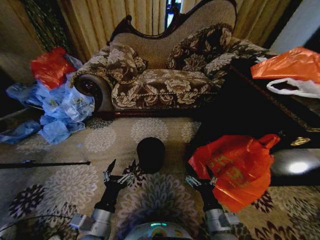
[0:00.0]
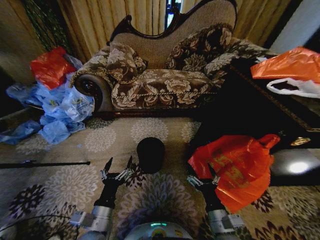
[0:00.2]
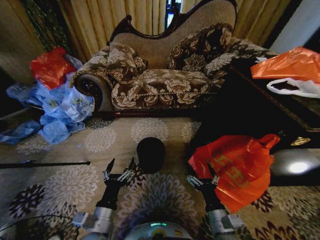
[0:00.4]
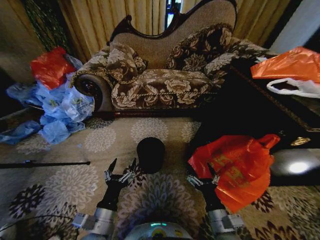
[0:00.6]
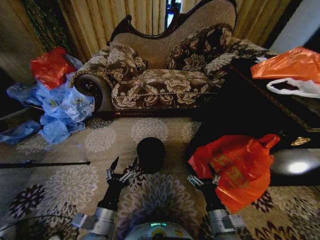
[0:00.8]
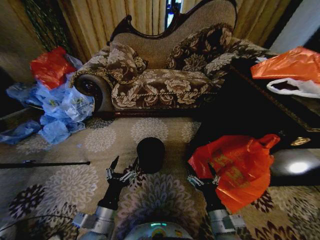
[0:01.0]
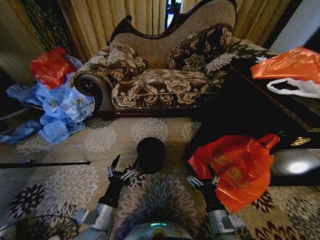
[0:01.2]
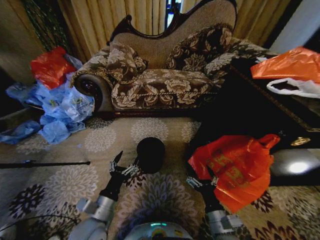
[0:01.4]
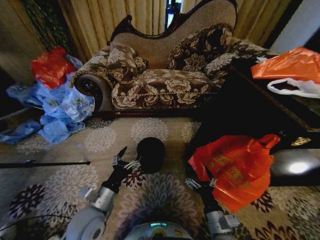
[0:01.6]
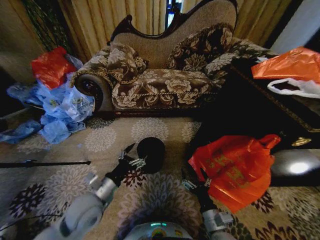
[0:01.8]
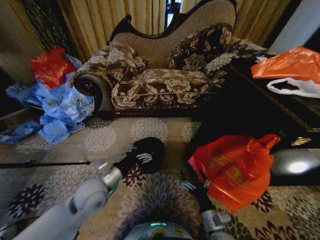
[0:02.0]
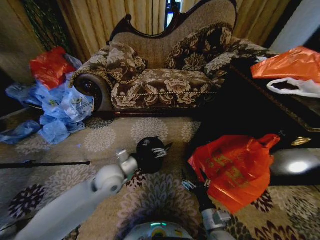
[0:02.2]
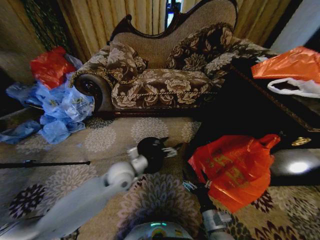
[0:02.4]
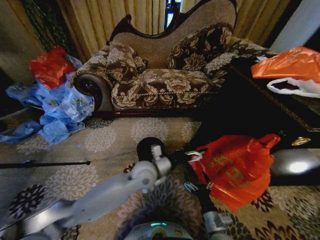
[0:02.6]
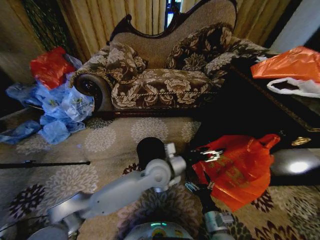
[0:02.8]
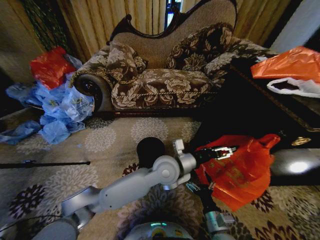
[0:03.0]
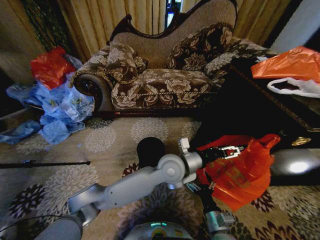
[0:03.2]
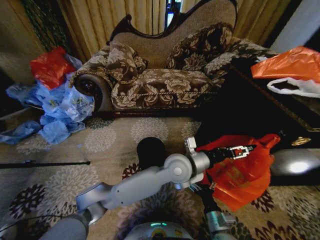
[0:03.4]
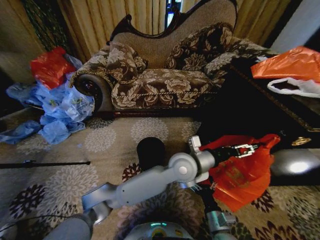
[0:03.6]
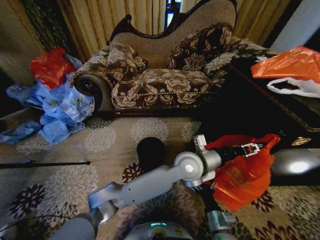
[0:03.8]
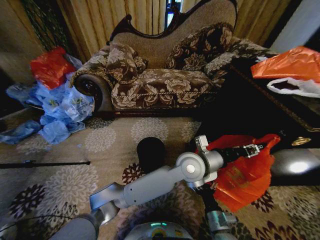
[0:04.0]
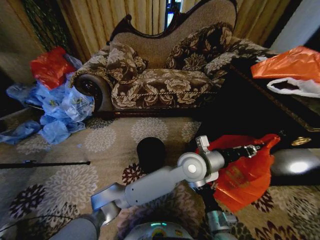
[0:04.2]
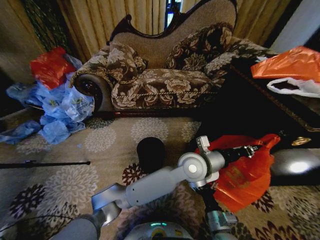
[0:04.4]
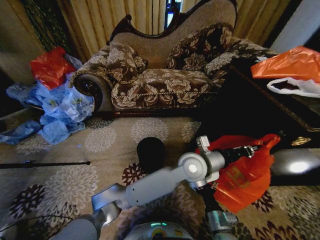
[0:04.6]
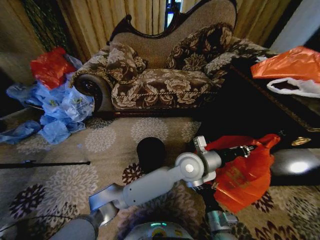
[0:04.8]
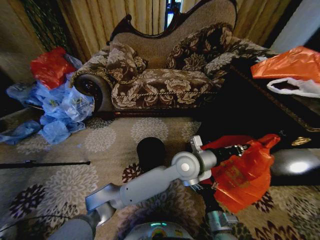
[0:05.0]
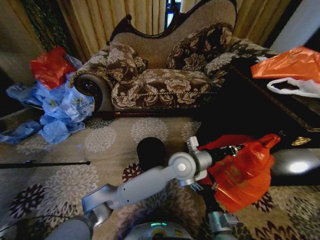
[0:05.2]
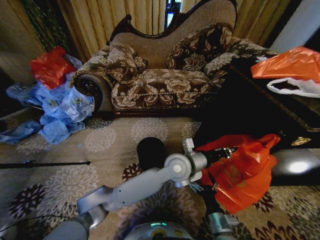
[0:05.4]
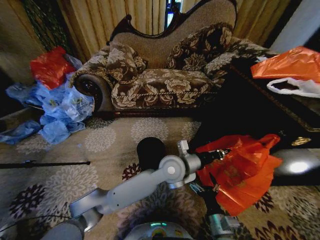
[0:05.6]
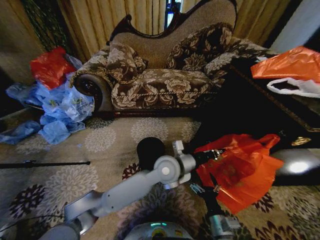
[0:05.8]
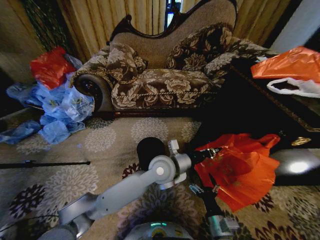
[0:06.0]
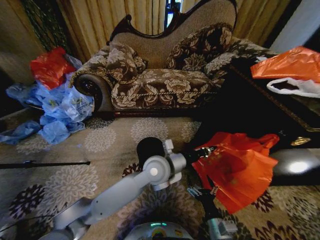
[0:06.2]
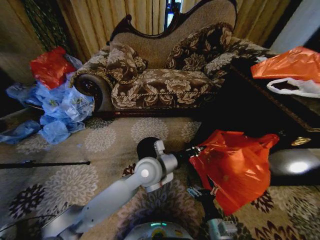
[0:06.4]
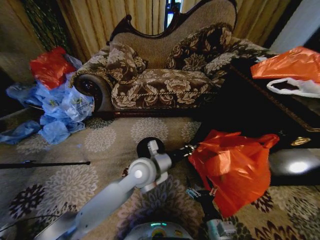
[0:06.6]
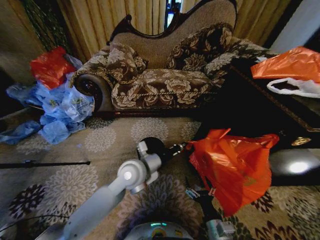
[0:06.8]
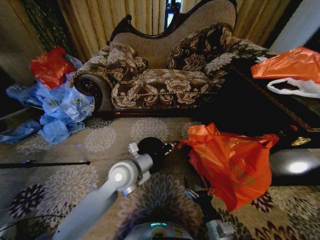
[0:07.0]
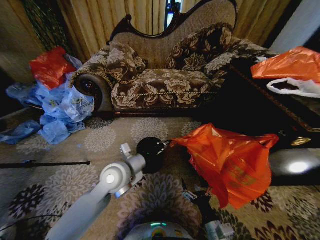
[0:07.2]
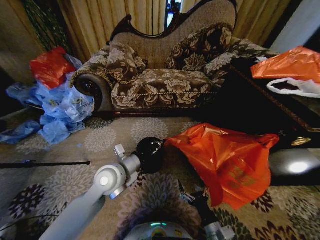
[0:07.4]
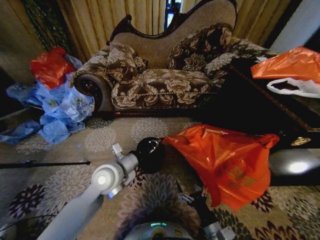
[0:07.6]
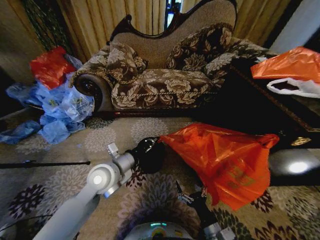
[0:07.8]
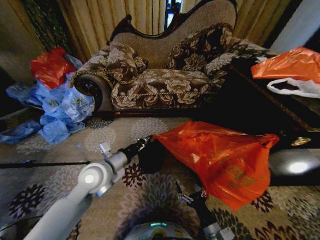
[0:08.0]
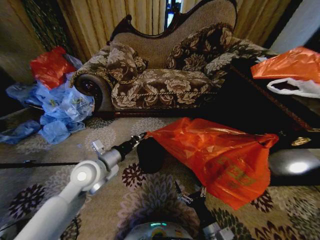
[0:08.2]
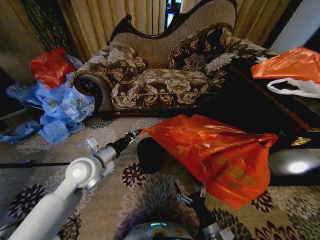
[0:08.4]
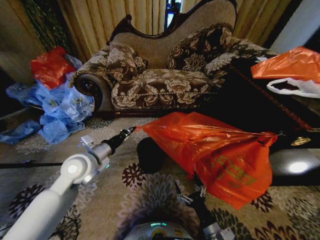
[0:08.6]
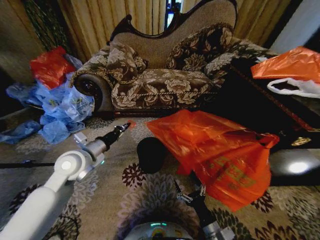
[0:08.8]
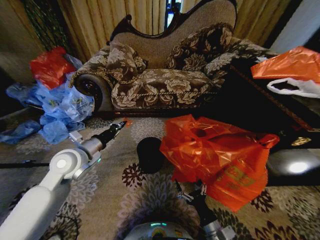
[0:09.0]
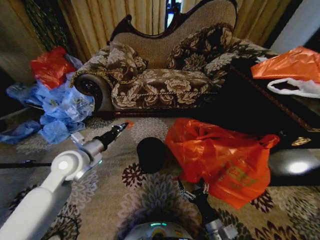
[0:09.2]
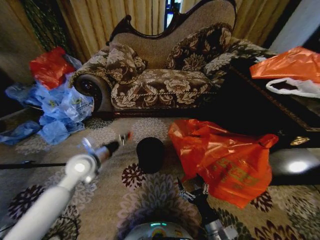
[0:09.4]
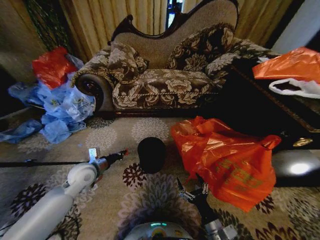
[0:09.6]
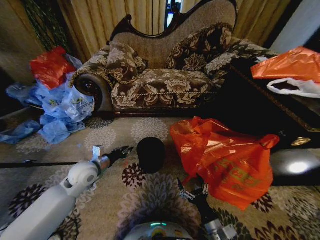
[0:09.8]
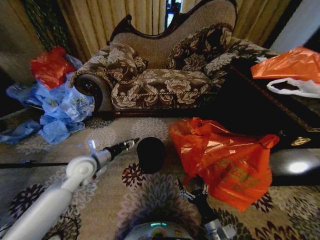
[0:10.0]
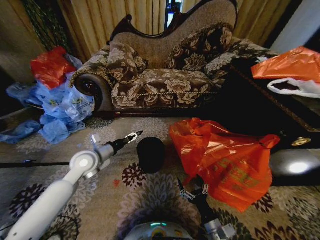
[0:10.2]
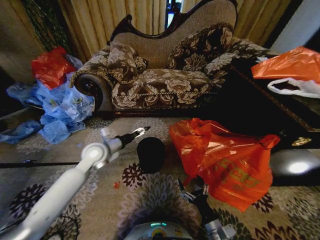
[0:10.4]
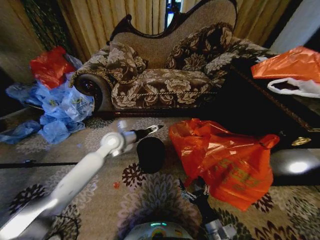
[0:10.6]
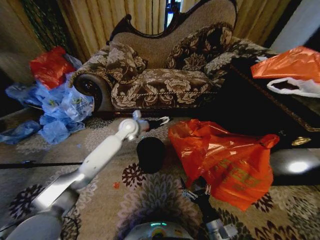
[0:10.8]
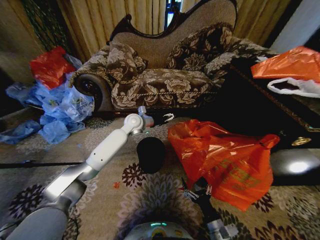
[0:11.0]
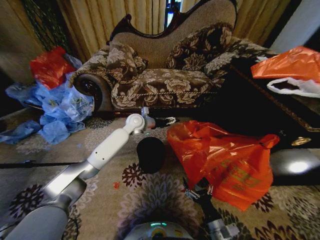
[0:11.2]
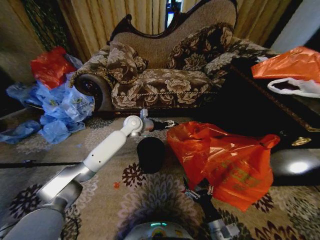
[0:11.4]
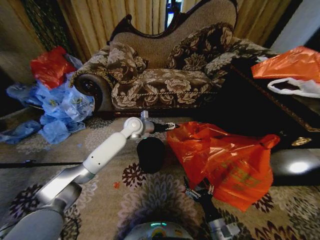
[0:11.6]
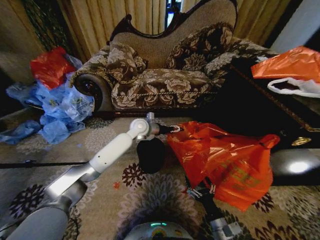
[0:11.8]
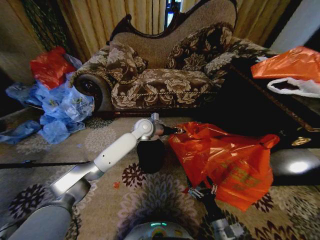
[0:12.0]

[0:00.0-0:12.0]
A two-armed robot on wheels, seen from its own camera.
Task of the whole recording: Place a garbage bag over the trash bin.
0:01.6 to 0:03.0: The left gripper travels to the right and forward by some 25 cm.
0:03.0 to 0:04.4: The left gripper moves to the right, some 10 cm, and closes.
0:04.4 to 0:06.0: The left gripper moves to the left, roughly 10 cm.
0:06.0 to 0:07.6: The left gripper travels to the left by roughly 15 cm.
0:07.6 to 0:09.0: The left gripper travels to the left by roughly 10 cm.
0:09.0 to 0:10.4: The left gripper is displaced forward by some 5 cm, and opens.
0:10.4 to 0:12.0: The left gripper goes roughly 25 cm to the right and forward, and closes.

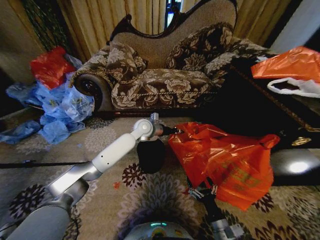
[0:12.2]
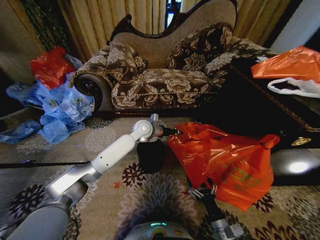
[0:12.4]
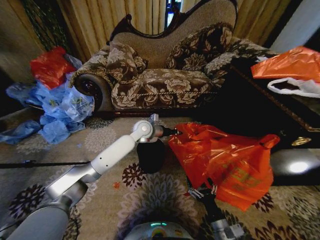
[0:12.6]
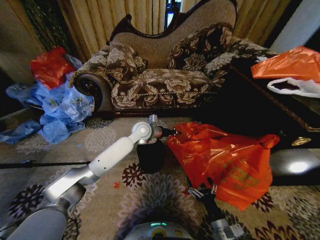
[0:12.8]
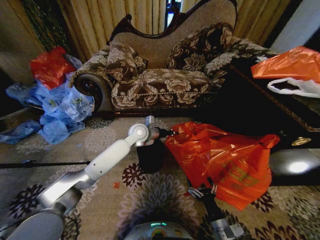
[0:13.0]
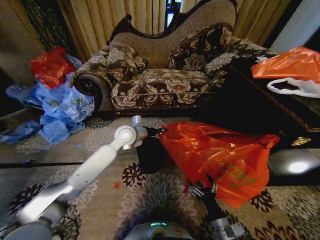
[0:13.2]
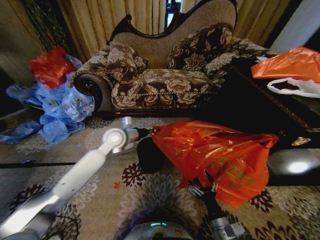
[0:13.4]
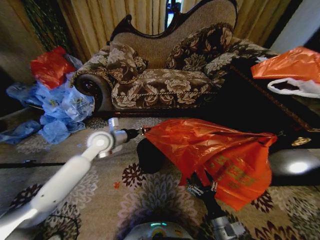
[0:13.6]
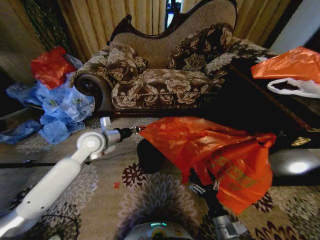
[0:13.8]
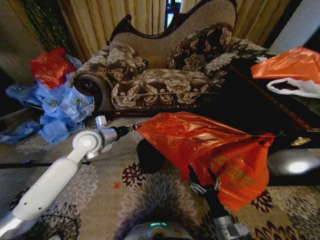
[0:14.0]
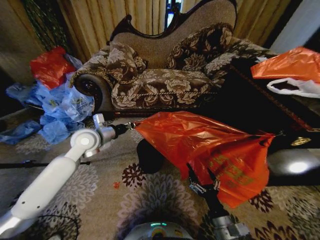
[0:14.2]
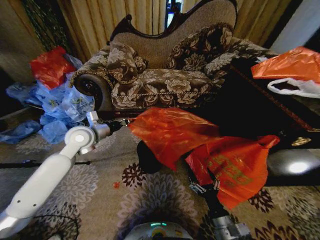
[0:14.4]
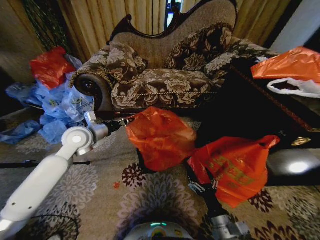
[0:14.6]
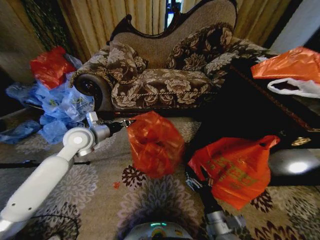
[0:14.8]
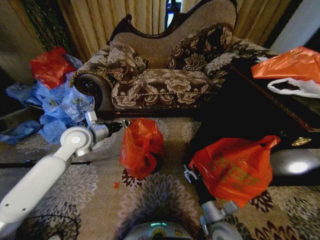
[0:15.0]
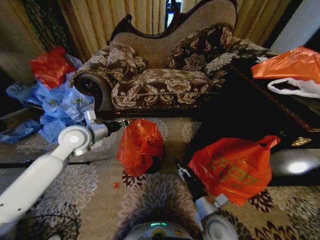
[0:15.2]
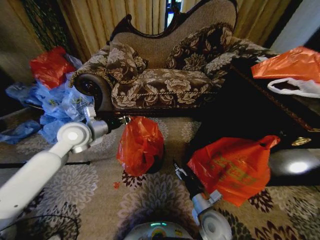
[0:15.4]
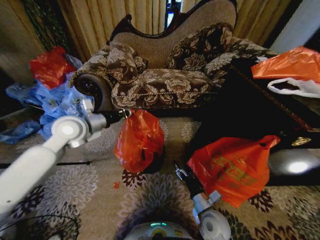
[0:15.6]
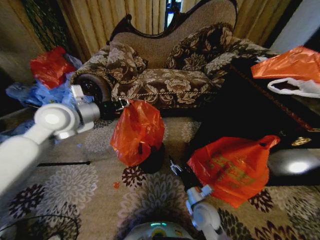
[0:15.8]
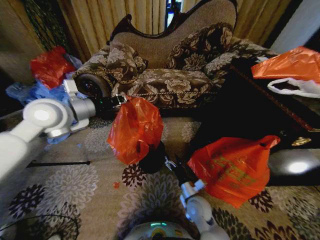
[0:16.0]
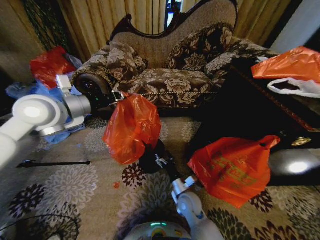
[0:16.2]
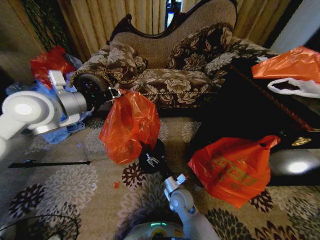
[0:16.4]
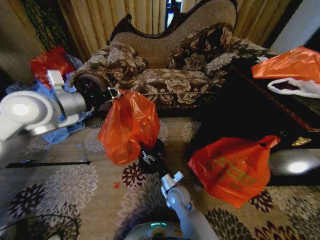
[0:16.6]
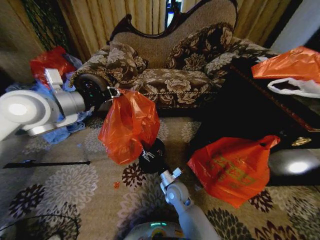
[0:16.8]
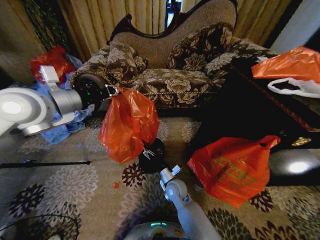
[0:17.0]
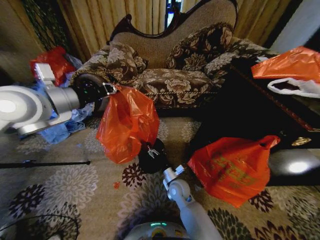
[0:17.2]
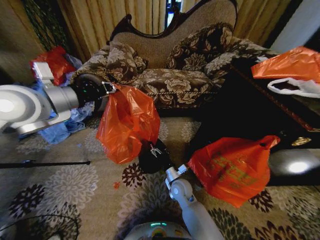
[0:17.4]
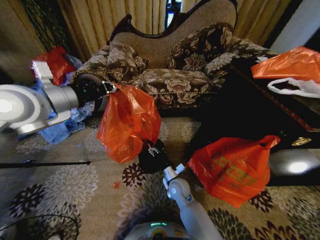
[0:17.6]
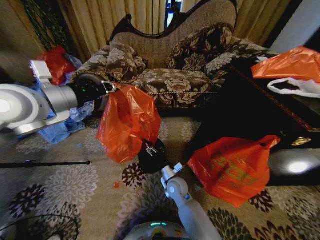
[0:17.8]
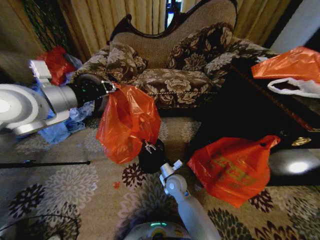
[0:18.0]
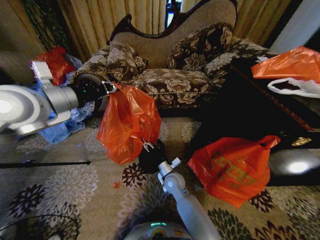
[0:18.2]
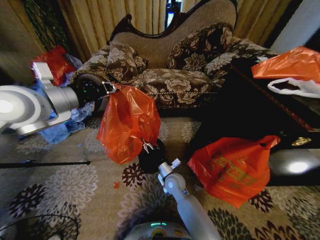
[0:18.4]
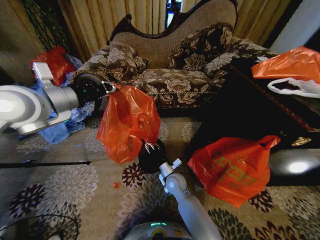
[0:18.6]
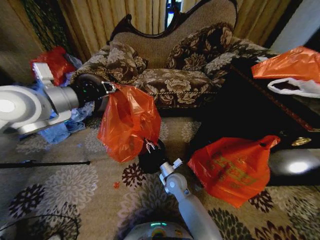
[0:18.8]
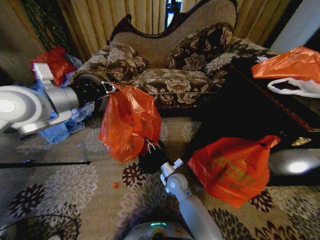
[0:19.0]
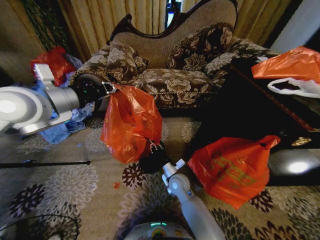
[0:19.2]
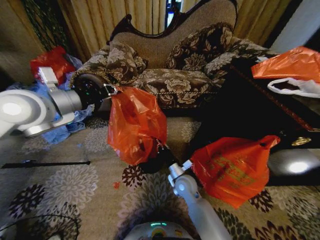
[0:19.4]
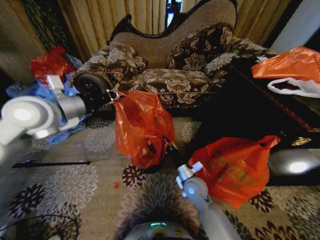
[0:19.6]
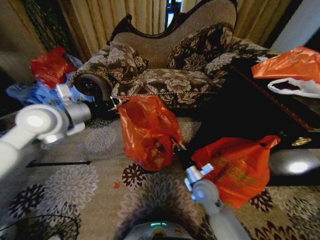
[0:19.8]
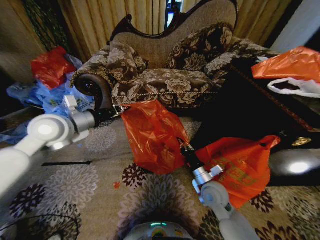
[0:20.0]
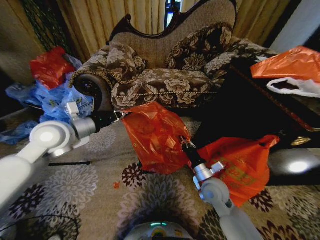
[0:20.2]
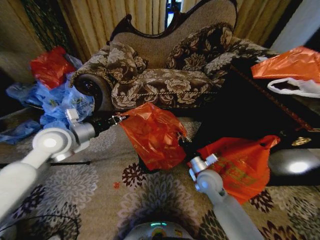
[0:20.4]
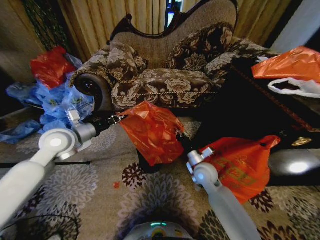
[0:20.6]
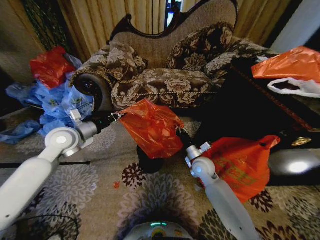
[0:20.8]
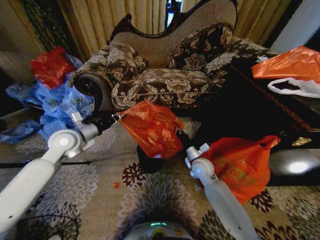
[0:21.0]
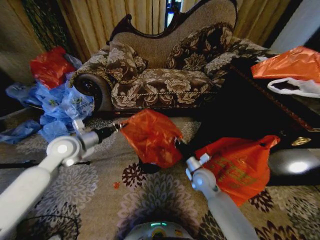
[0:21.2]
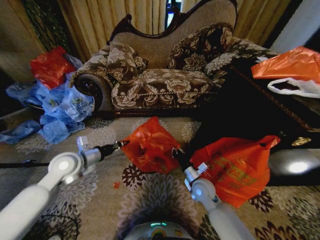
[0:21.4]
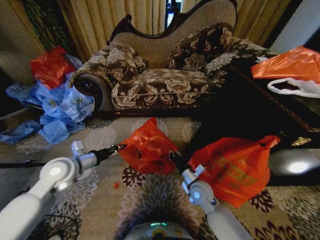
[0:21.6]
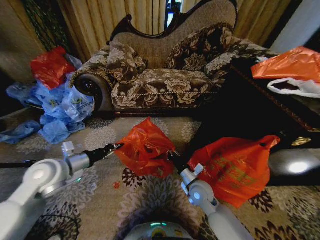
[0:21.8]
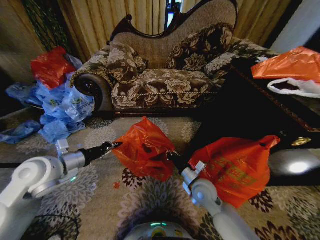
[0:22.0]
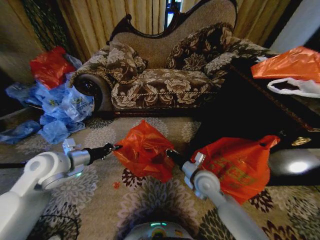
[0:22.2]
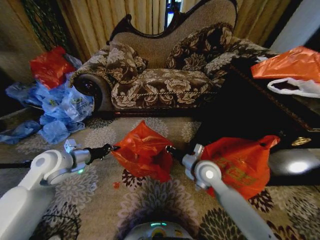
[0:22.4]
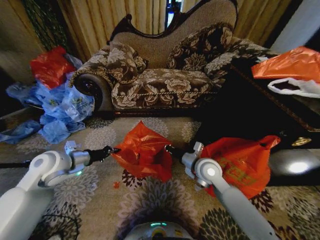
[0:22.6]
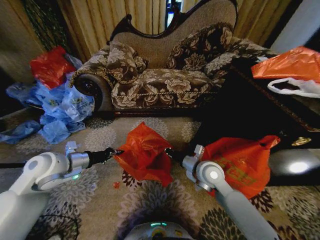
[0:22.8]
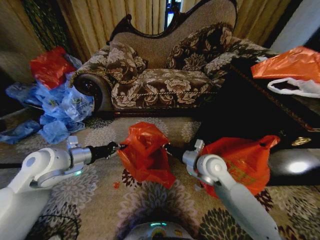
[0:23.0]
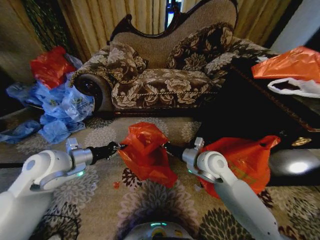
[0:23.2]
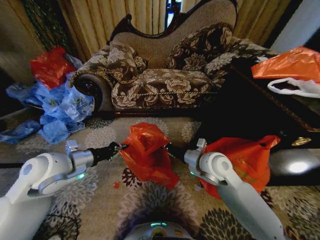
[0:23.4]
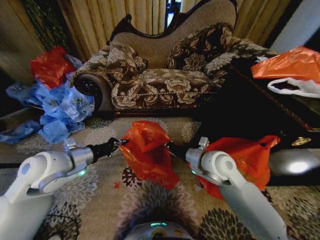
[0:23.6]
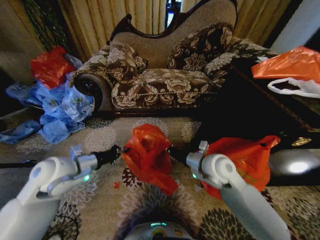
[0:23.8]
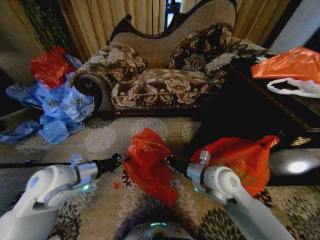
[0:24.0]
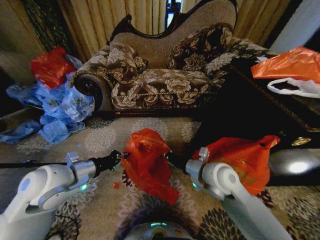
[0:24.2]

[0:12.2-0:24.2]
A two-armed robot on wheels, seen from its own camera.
Task of the whole recording: Place a garbage bag over the trash bin.
0:12.2 to 0:13.8: The left gripper moves to the left and backward, some 20 cm.
0:13.8 to 0:15.2: The left gripper moves about 5 cm, while the right gripper heads forward, covering about 5 cm.
0:15.2 to 0:16.6: The left gripper heads upward, covering approximately 15 cm. Meanwhile the right gripper travels to the left and forward by about 15 cm.
0:16.6 to 0:18.2: The right gripper goes roughly 5 cm forward.
0:18.2 to 0:19.8: The left gripper is displaced downward by approximately 5 cm. Meanwhile the right gripper goes approximately 10 cm to the right, and closes.
0:19.8 to 0:21.2: The left gripper is displaced downward by some 15 cm.
0:21.2 to 0:22.6: The right gripper goes roughly 10 cm upward.
0:22.6 to 0:24.2: The right gripper goes roughly 5 cm backward. The left gripper goes some 10 cm backward and to the right.
